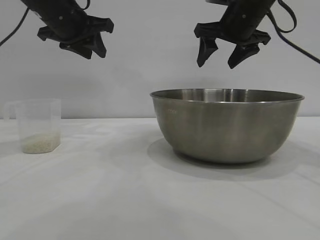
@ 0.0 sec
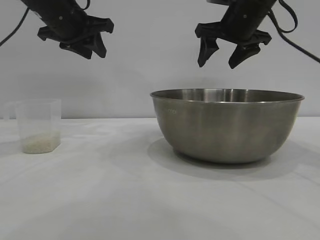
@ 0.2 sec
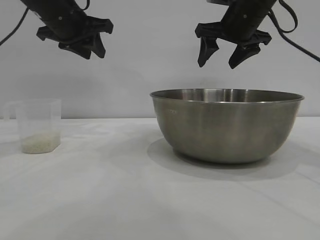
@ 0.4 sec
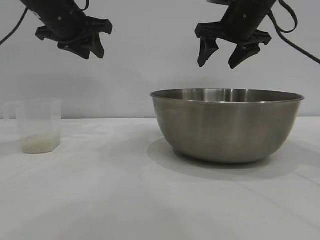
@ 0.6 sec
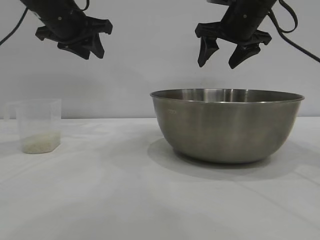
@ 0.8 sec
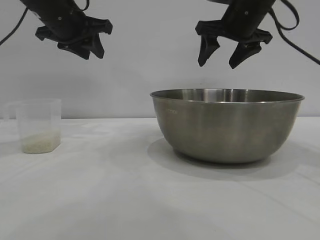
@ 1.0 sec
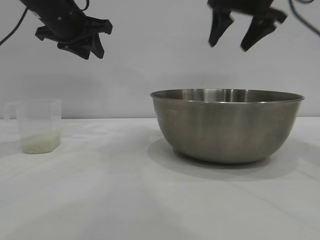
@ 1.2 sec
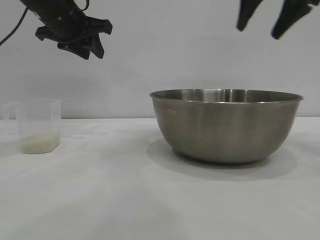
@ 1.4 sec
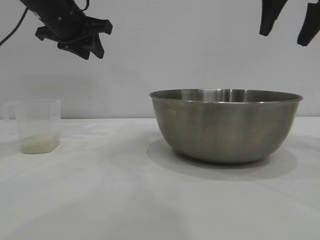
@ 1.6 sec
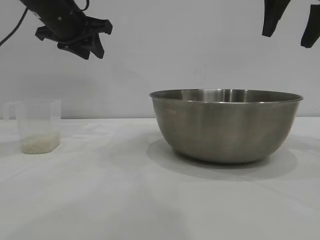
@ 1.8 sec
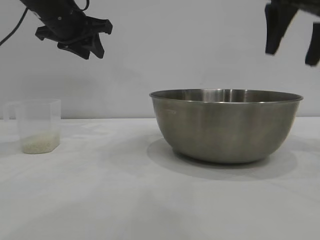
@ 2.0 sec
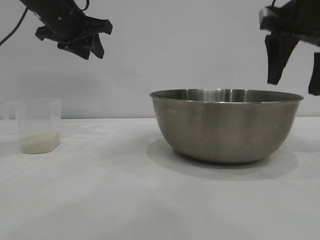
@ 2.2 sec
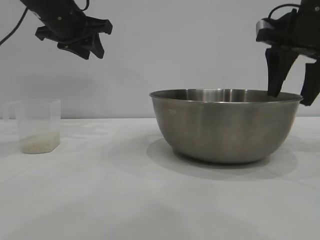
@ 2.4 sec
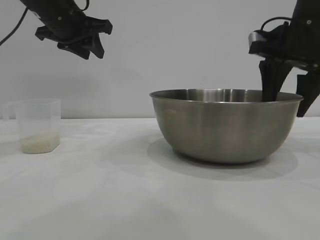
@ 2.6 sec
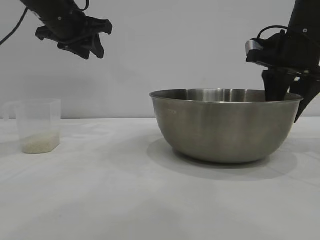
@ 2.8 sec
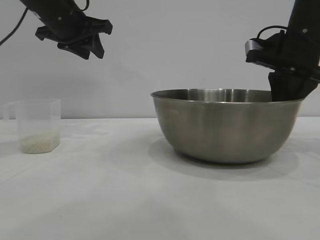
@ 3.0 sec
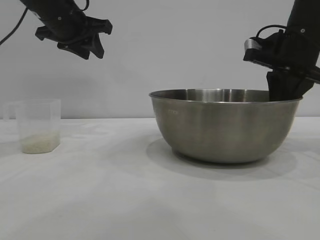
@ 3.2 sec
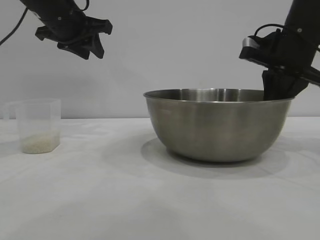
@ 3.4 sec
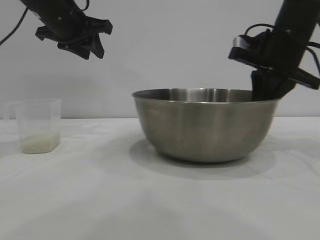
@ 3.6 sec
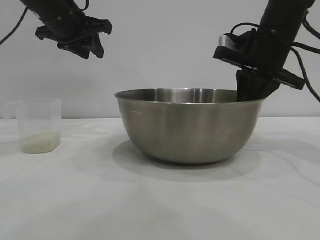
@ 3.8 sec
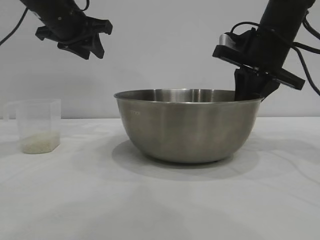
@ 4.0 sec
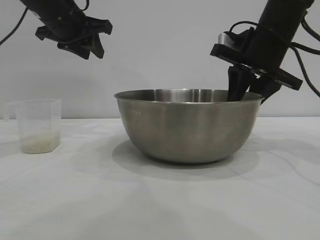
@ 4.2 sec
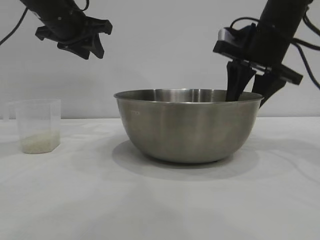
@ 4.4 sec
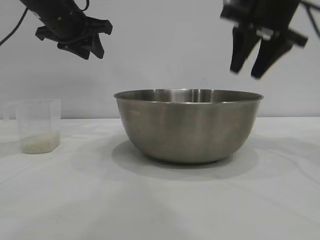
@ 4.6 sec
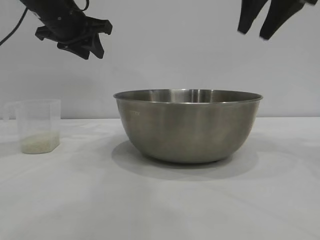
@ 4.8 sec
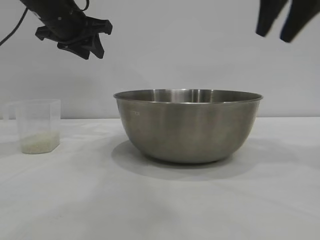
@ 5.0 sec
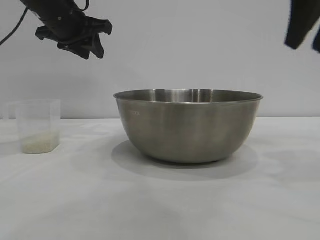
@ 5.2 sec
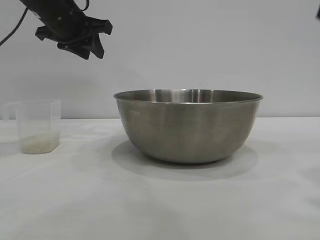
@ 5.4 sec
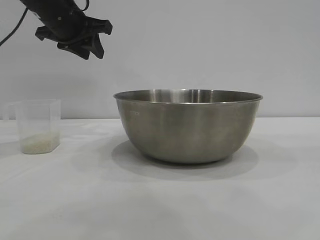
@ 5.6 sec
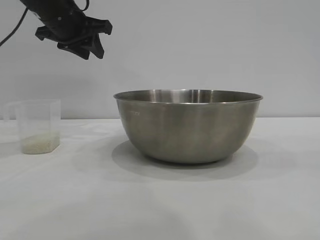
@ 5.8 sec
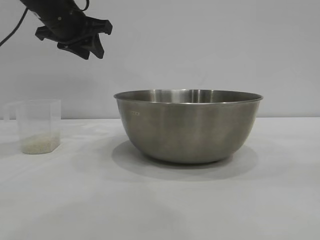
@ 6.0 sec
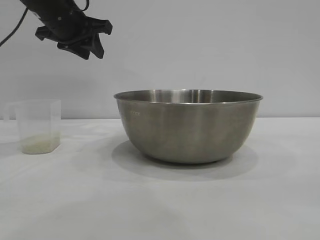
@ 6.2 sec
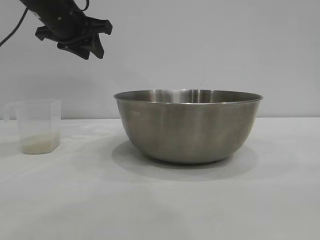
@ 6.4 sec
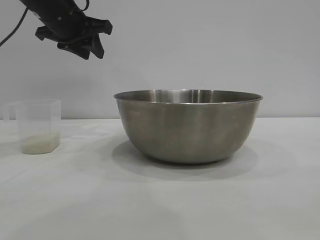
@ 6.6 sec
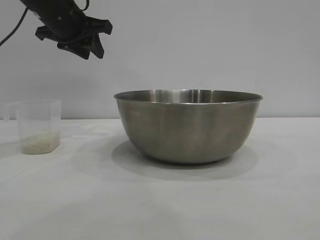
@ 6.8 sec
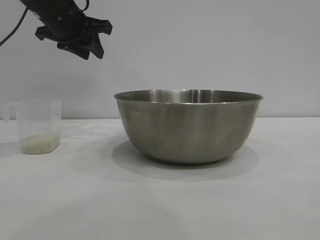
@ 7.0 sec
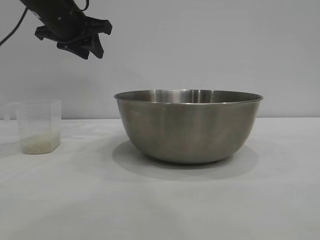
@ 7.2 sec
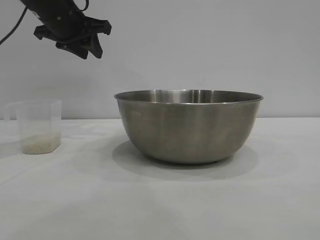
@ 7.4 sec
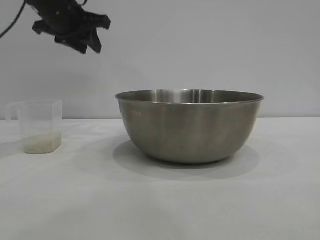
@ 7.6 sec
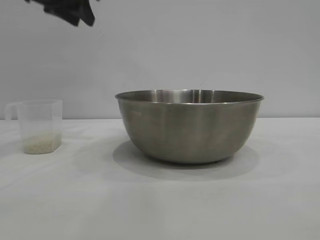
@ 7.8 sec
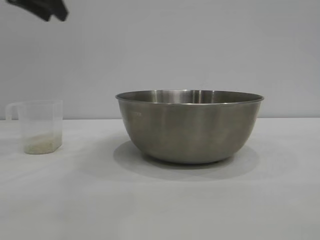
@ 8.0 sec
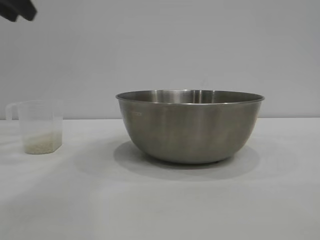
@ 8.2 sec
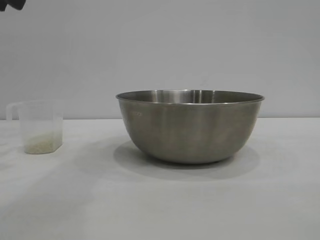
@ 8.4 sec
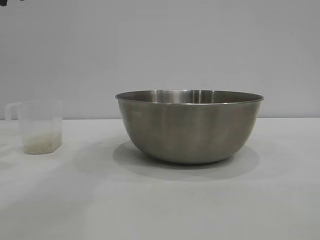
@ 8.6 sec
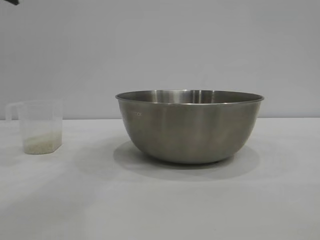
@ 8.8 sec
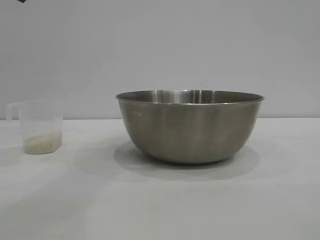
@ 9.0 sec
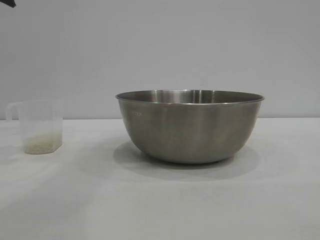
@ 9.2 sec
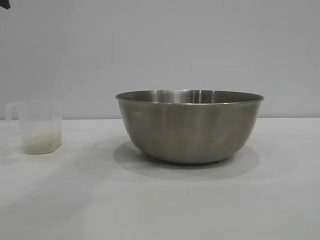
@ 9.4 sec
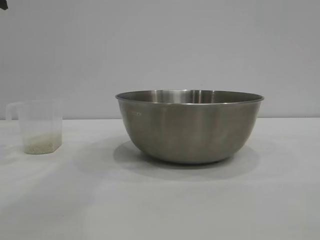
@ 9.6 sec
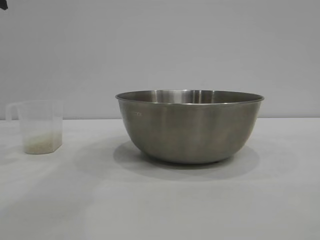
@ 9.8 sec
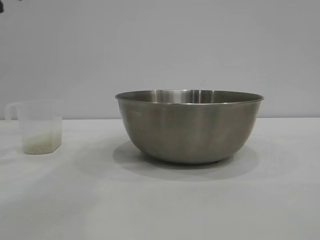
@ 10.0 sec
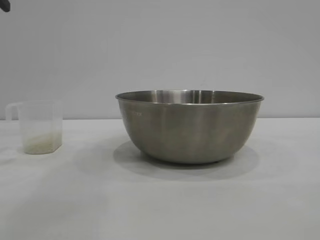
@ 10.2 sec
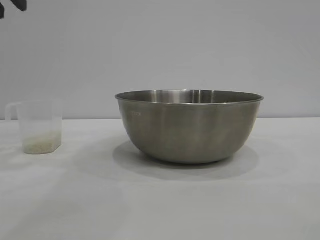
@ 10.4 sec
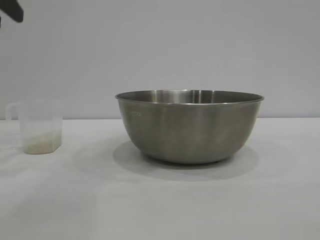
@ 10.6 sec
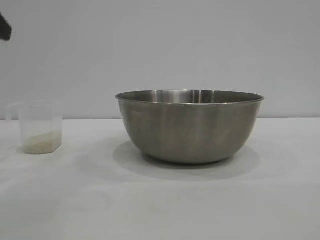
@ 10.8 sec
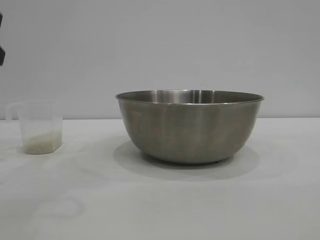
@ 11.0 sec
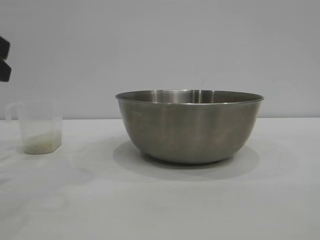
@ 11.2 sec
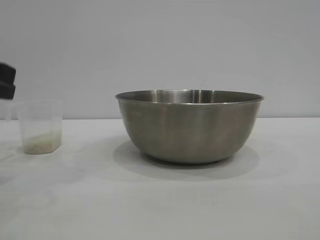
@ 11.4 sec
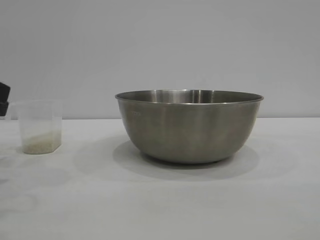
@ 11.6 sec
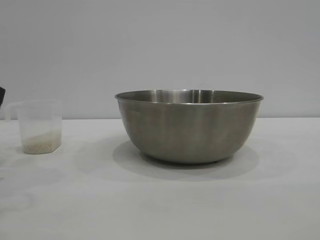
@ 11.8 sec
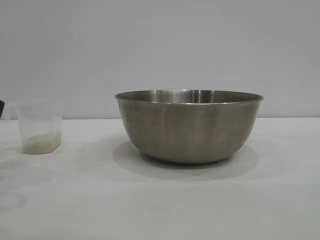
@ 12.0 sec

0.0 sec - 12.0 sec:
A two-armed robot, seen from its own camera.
Task of the whole recording: the right gripper grasp the rice container and place it in the center of the table, the left gripper grasp the rice scoop and pour the rice into the rice container.
Step, 0.0 sec - 4.4 sec: Move the bowl to the center of view with the right gripper.

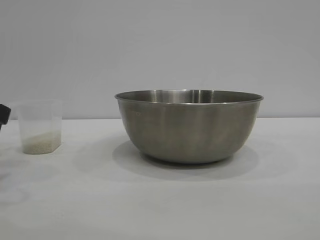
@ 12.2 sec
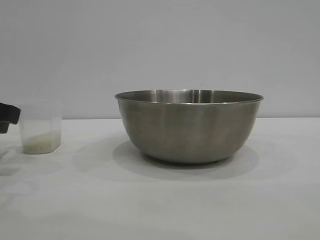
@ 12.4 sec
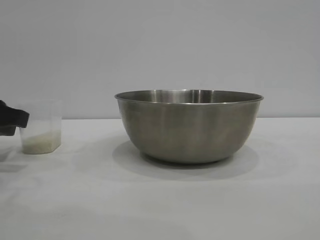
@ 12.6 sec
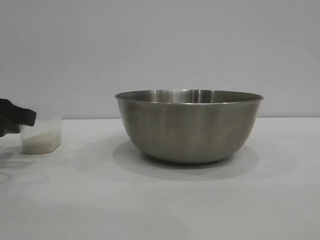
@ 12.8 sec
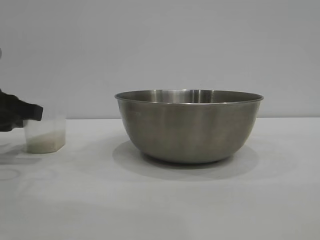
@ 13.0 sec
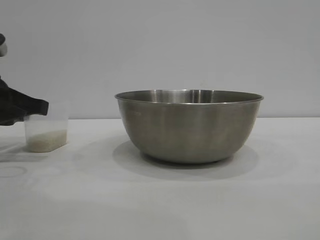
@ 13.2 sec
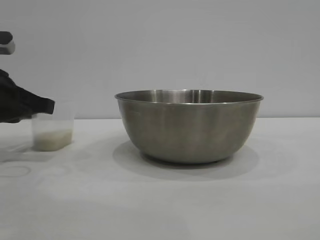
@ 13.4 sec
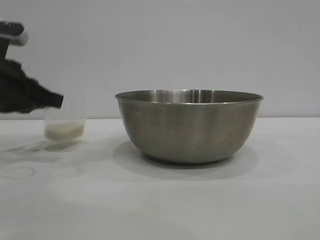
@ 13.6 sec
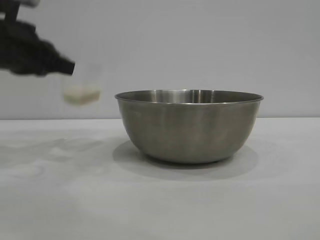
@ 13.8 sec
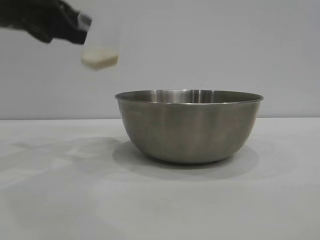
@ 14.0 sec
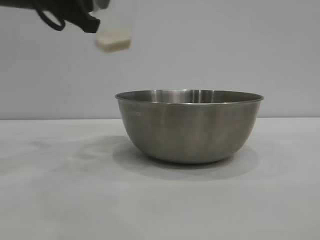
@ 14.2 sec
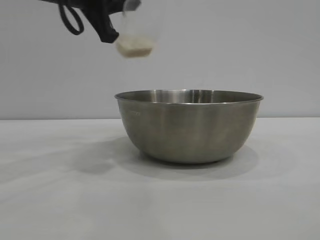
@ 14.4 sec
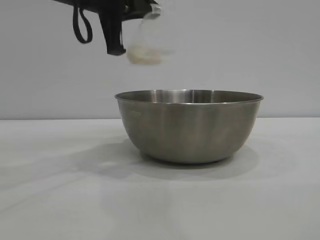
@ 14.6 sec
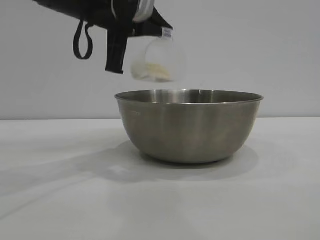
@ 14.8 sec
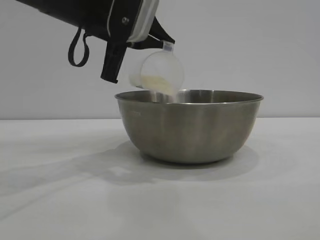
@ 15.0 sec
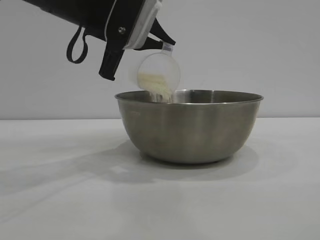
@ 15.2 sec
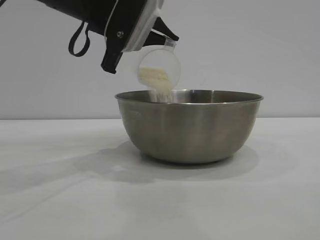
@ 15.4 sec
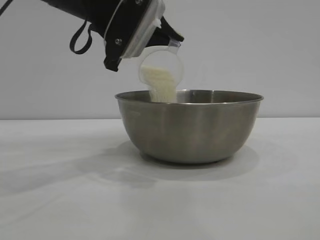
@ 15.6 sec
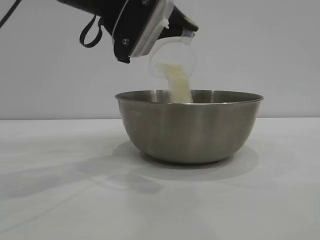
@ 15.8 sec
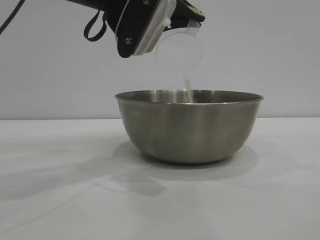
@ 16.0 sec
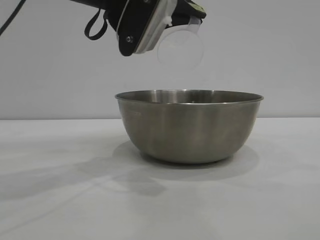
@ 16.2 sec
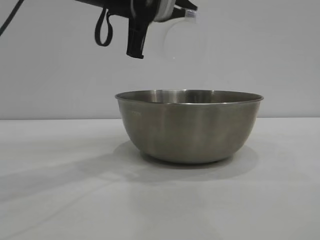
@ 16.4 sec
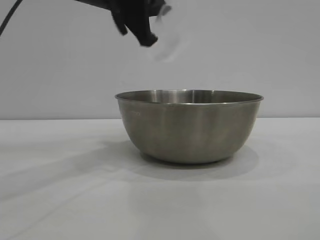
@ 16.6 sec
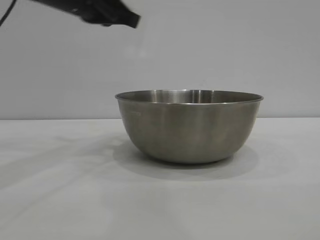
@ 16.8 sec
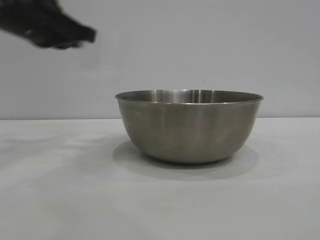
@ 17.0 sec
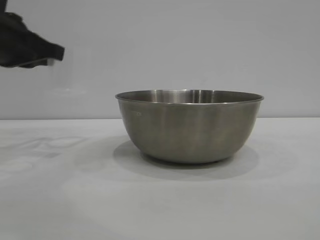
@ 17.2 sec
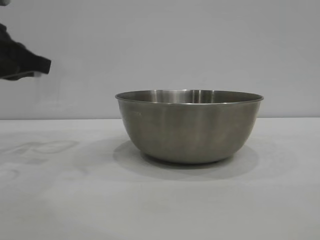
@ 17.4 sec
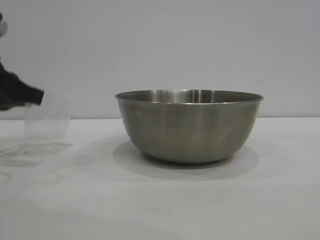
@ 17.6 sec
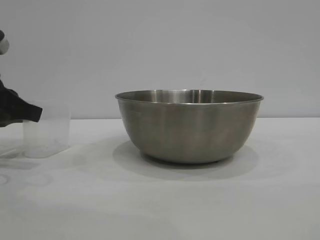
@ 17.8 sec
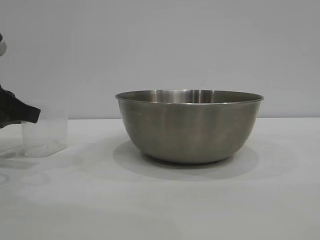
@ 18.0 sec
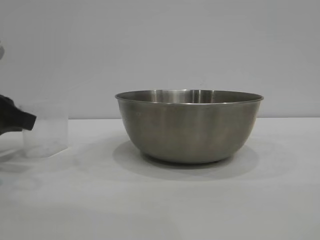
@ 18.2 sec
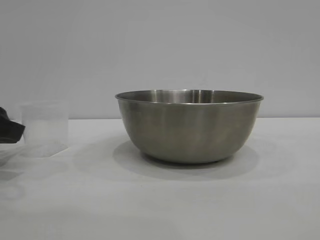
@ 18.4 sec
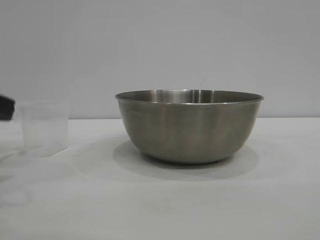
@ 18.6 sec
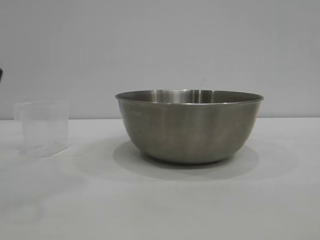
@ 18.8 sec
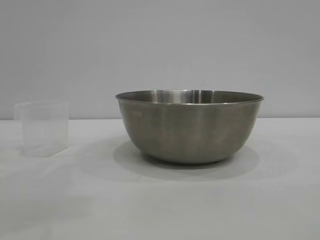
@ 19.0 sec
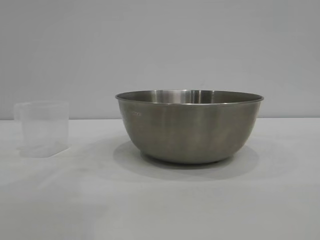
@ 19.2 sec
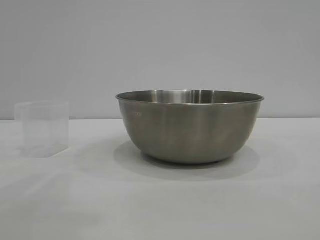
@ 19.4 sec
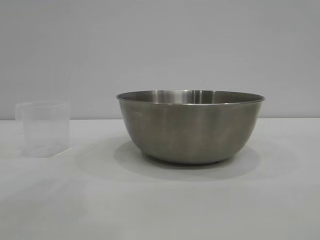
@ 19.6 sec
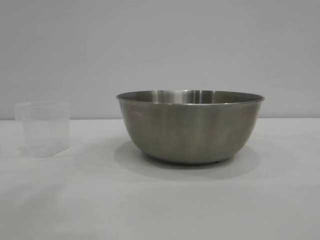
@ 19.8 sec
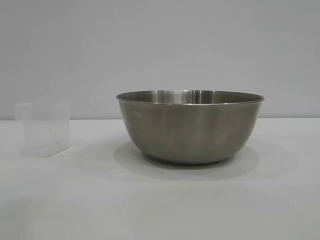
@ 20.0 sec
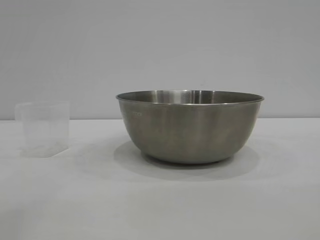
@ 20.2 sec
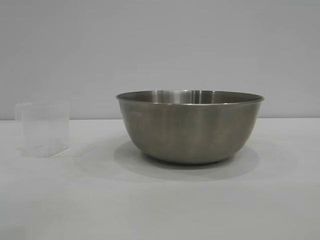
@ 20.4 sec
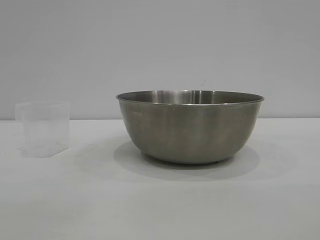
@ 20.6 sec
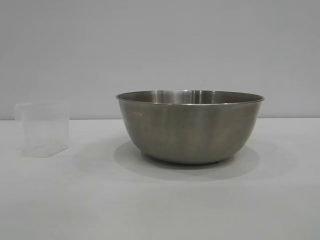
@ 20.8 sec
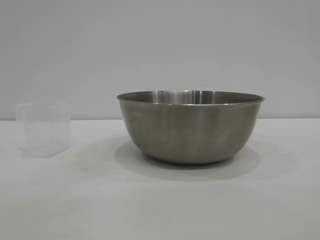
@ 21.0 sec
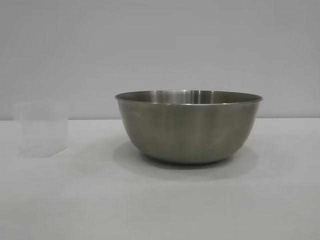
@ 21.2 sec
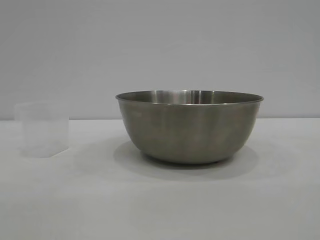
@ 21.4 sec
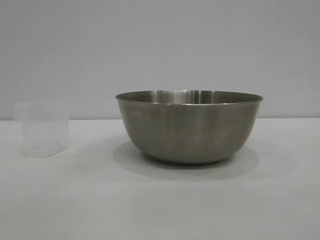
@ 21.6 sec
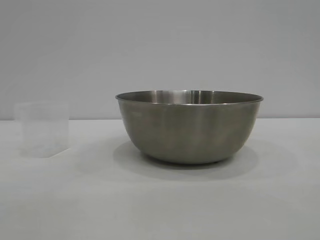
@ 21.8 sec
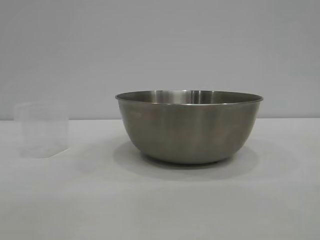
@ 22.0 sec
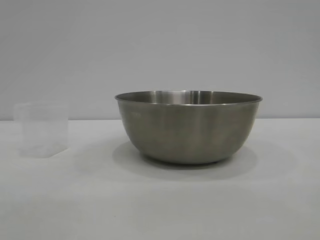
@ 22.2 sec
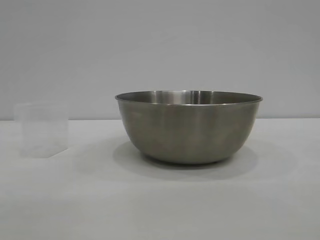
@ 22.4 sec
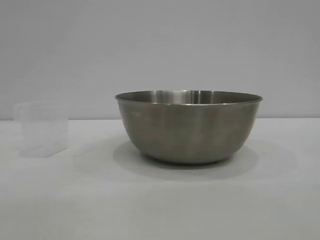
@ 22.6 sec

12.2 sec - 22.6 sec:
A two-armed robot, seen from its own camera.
Task of the whole recording: the right gripper grasp the rice container and place it in the center of the table, the left gripper grasp the rice scoop and pour the rice into the rice container.
Step, 13.8 sec - 16.4 sec: Pour the rice from the cup into the bowl with the left gripper.
Step, 16.6 sec - 18.6 sec: Place the cup on the table with the left gripper.
